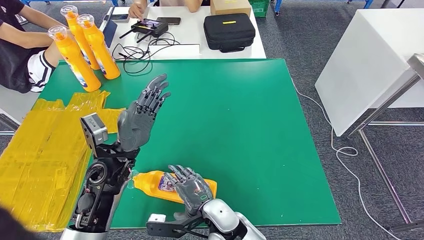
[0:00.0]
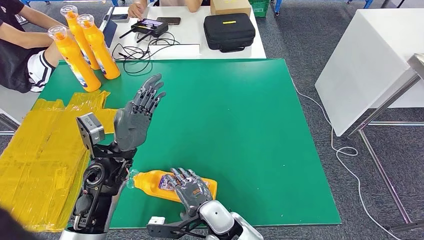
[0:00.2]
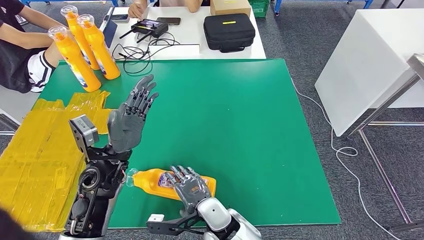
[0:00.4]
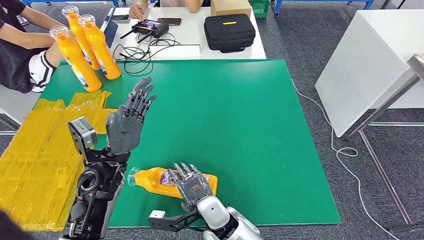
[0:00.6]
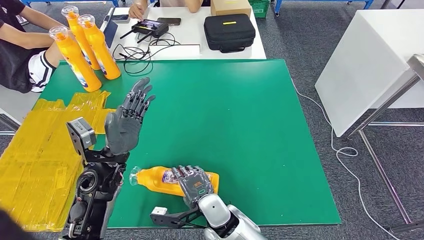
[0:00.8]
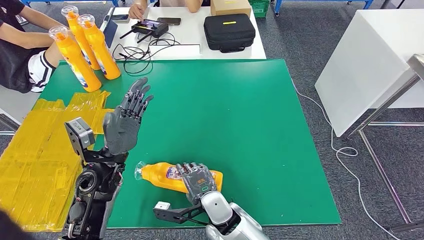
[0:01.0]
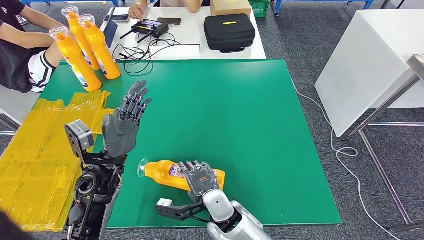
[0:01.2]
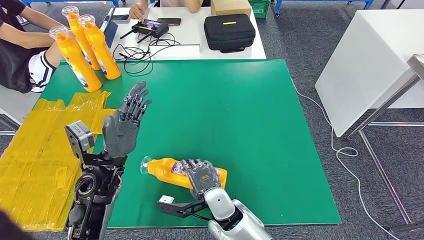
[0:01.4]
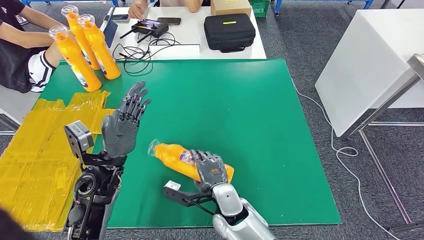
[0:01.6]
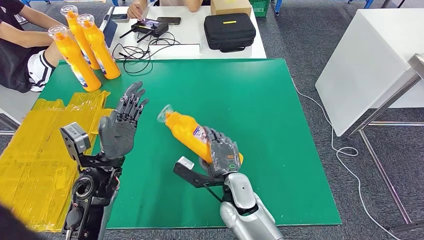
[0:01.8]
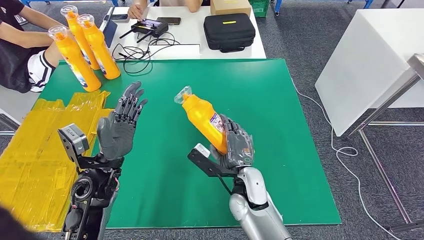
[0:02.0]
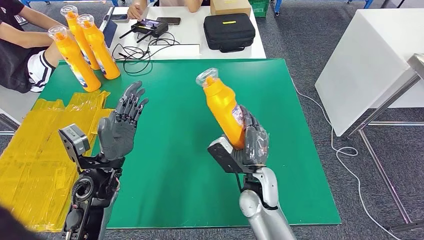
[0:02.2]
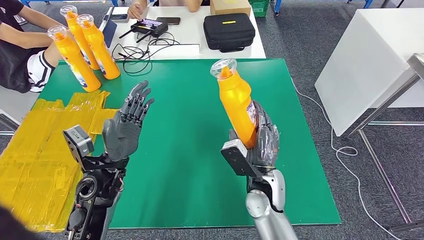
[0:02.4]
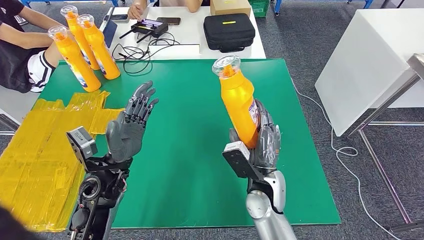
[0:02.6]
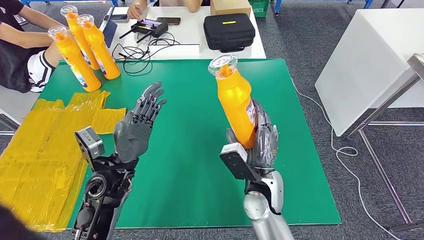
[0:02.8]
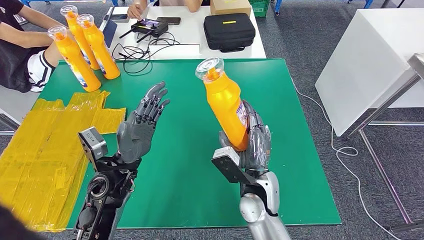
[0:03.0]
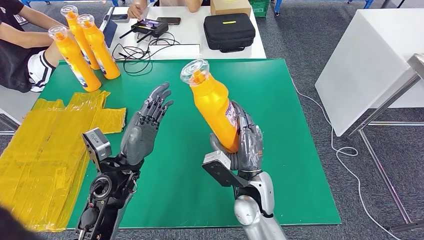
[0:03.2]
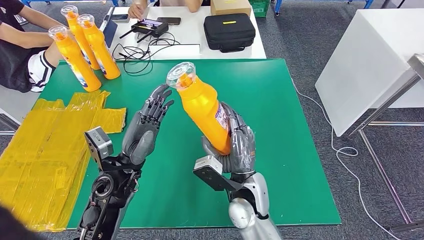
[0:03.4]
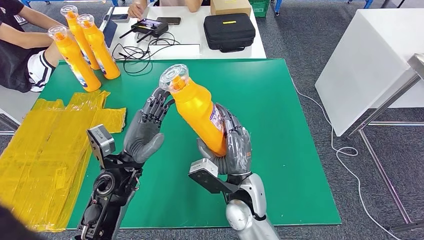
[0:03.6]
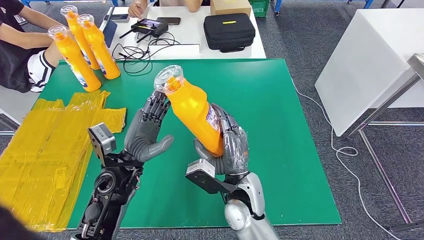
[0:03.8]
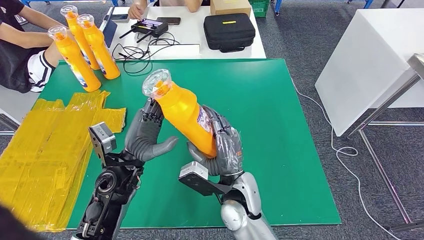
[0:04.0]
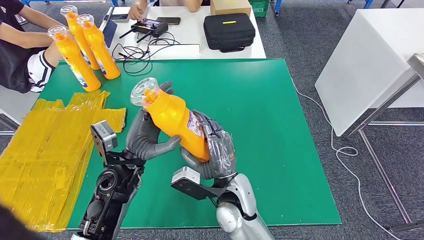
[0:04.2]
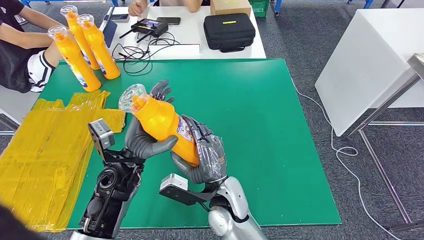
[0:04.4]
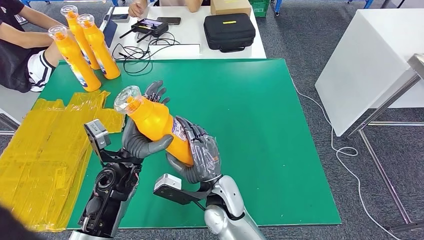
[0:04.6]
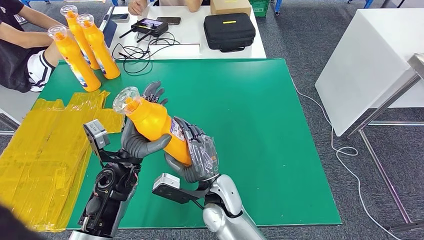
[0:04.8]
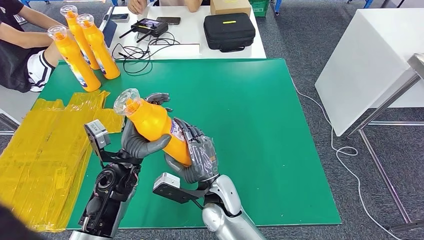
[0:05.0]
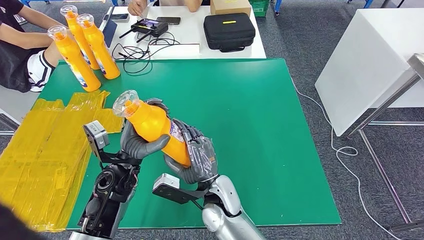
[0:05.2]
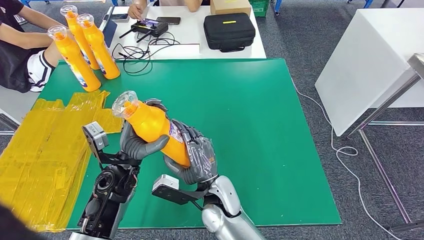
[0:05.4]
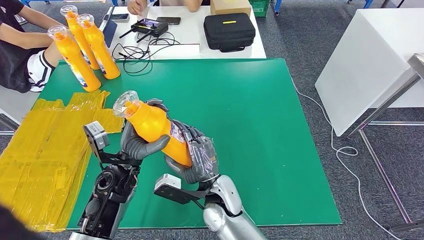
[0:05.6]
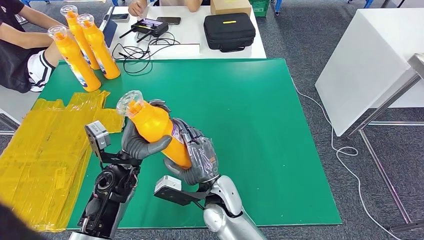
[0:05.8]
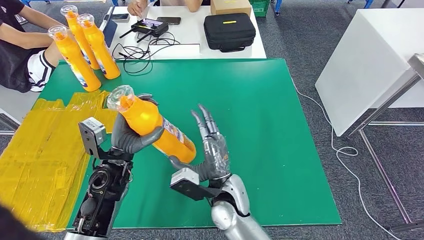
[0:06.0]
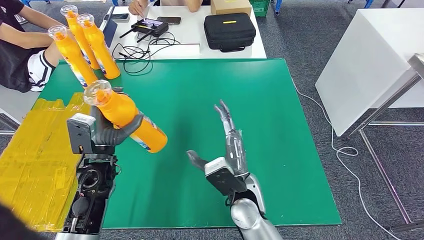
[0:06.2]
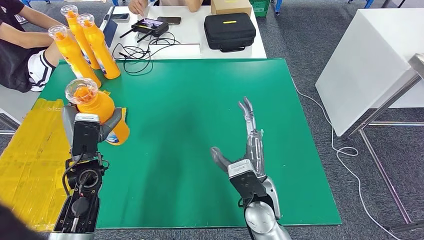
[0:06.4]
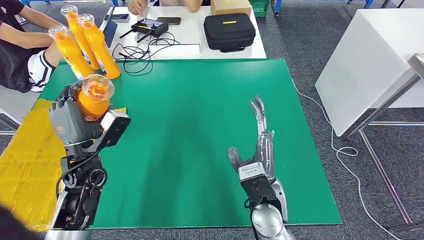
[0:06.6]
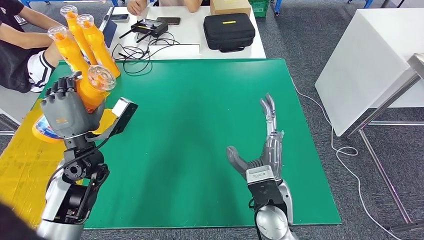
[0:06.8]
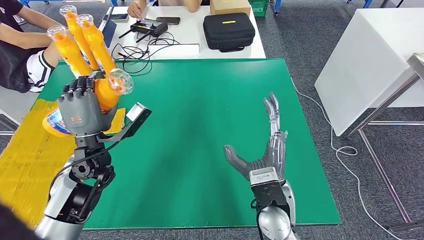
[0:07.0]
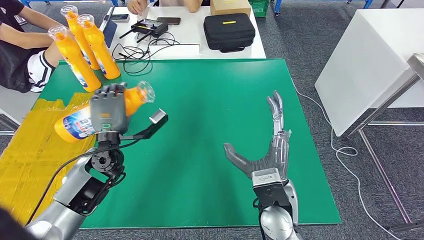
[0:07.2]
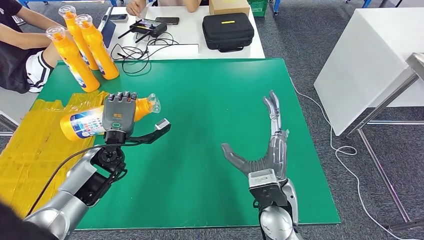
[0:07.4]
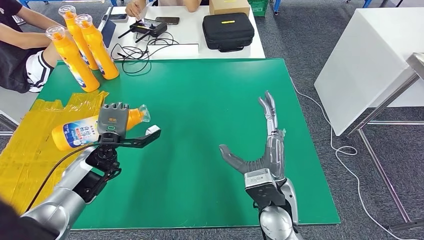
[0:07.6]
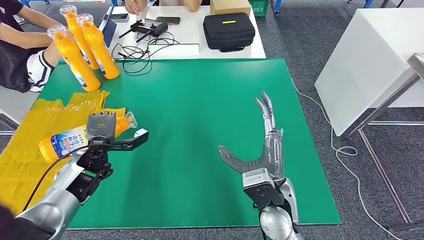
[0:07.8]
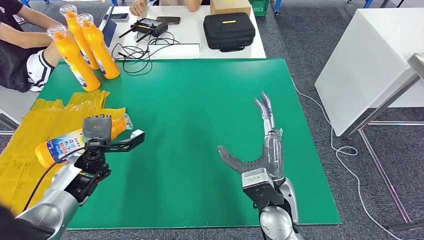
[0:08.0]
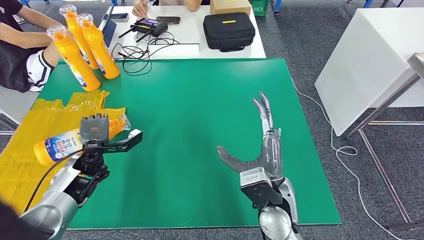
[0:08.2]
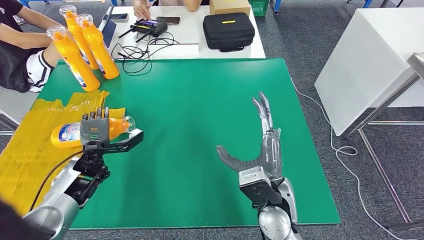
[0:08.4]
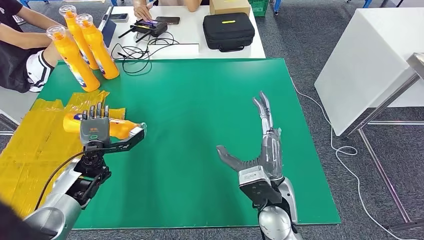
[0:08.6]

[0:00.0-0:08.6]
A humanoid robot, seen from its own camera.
Step, 0:00.0 to 0:04.0: Pick up the fast-moving consumer goods bottle from the table.
Step, 0:04.2 to 0:08.4: Flip the fast-moving consumer goods bottle to the front side.
0:00.0 to 0:01.4: The hands move only a little.
0:01.4 to 0:02.8: The right hand goes approximately 10 cm upward and to the right.
0:02.8 to 0:04.4: The right hand heads to the left, covering approximately 10 cm.
0:04.4 to 0:05.8: The hands make only small movements.
0:05.8 to 0:07.2: The left hand goes approximately 10 cm to the left and forward; the right hand travels to the right and upward by approximately 10 cm.
0:07.2 to 0:08.6: The left hand travels to the left and downward by some 10 cm.

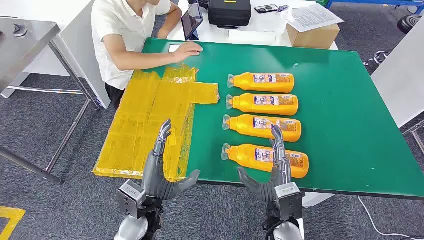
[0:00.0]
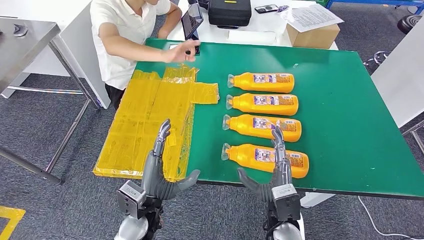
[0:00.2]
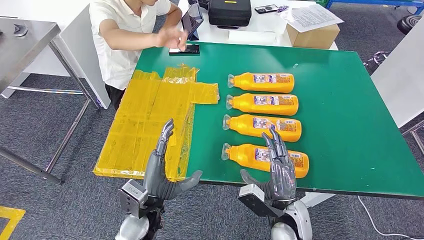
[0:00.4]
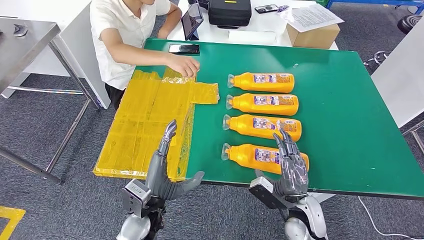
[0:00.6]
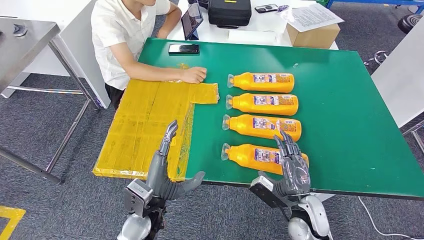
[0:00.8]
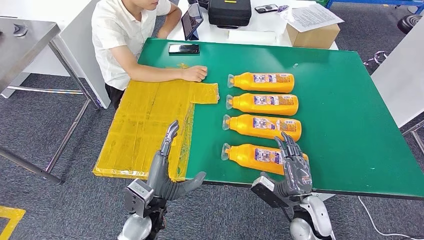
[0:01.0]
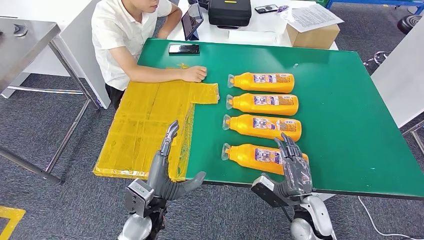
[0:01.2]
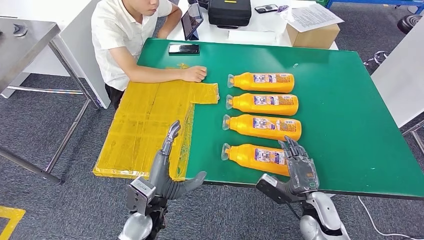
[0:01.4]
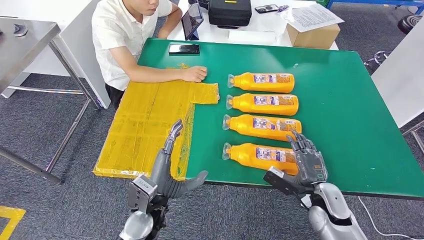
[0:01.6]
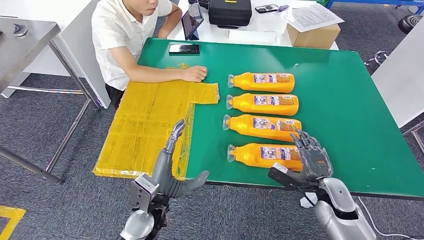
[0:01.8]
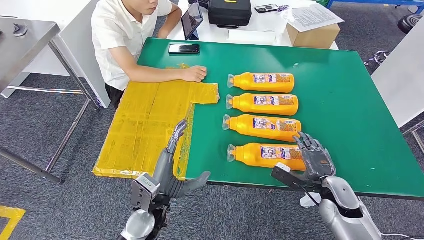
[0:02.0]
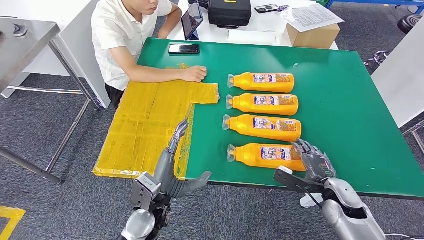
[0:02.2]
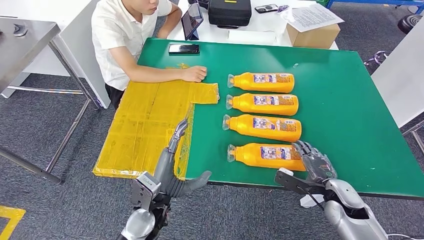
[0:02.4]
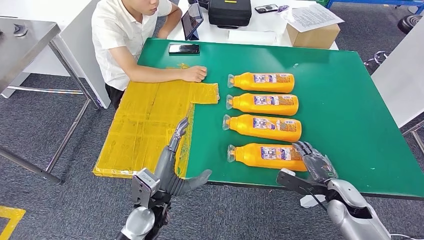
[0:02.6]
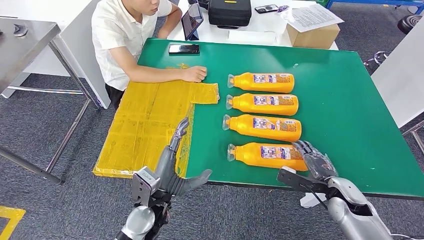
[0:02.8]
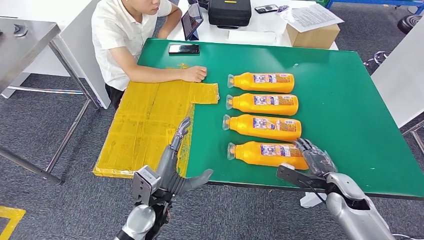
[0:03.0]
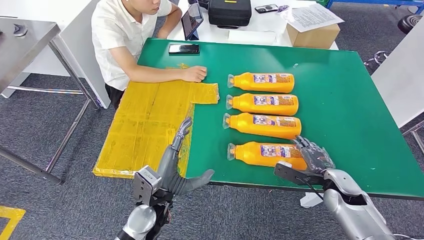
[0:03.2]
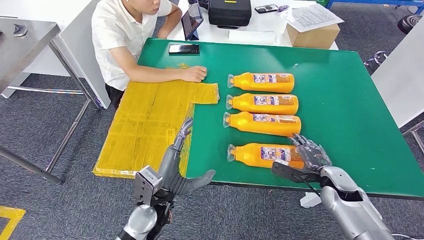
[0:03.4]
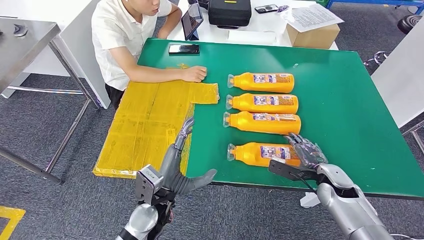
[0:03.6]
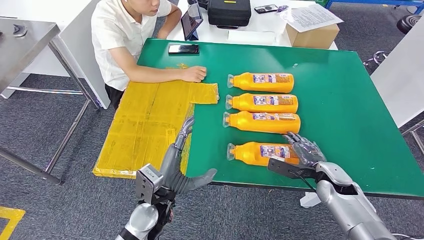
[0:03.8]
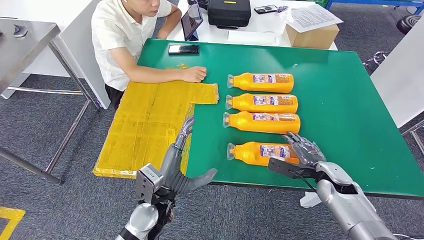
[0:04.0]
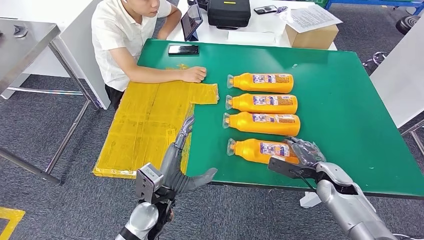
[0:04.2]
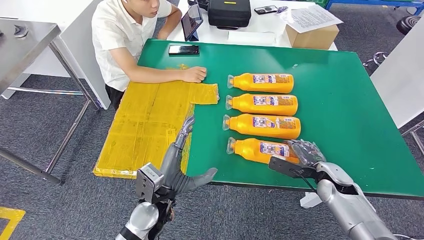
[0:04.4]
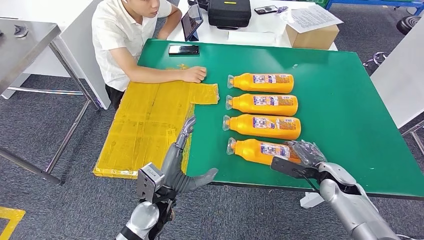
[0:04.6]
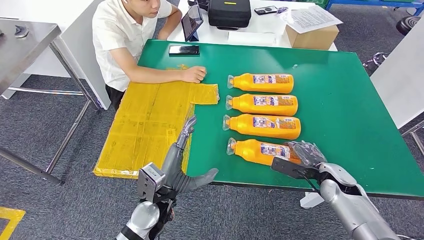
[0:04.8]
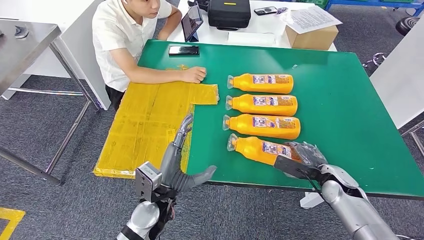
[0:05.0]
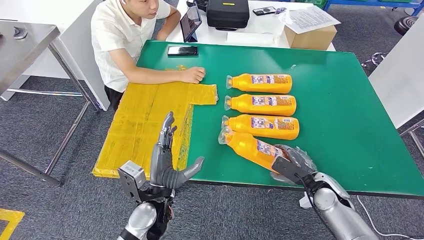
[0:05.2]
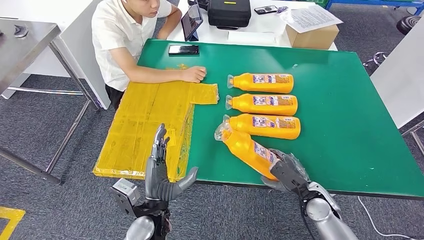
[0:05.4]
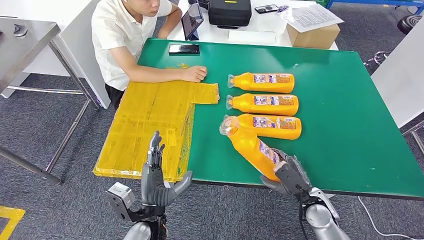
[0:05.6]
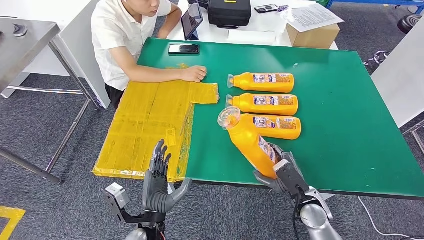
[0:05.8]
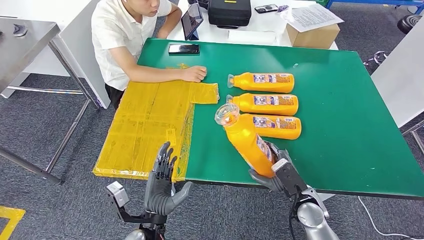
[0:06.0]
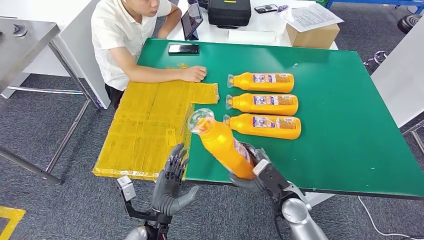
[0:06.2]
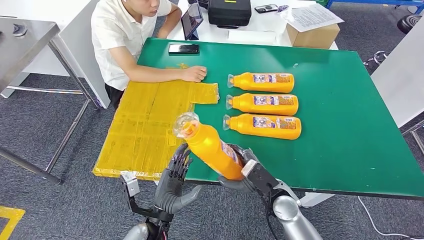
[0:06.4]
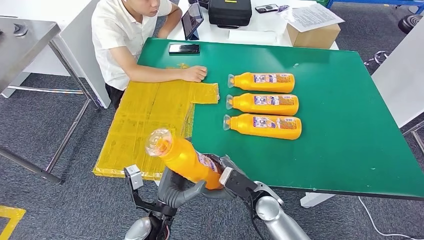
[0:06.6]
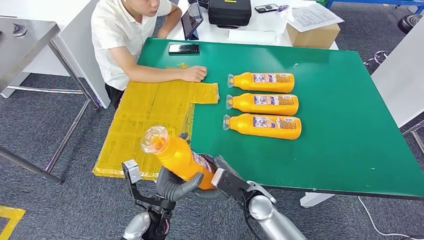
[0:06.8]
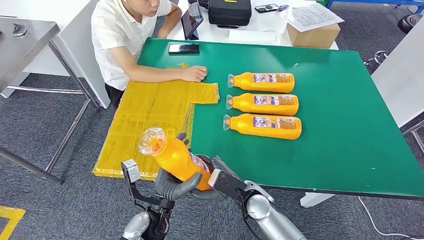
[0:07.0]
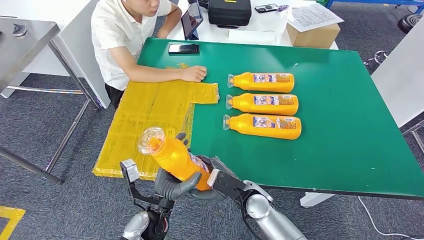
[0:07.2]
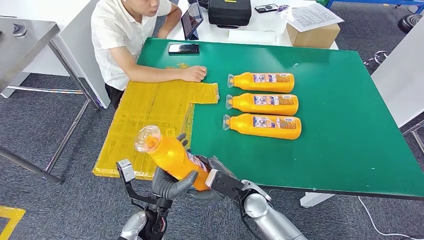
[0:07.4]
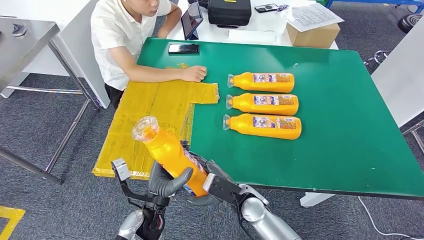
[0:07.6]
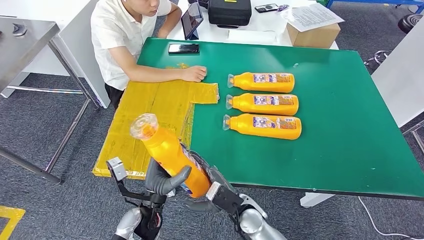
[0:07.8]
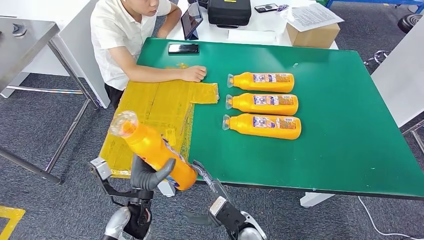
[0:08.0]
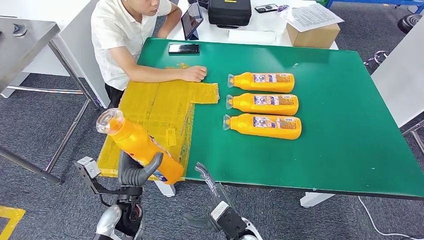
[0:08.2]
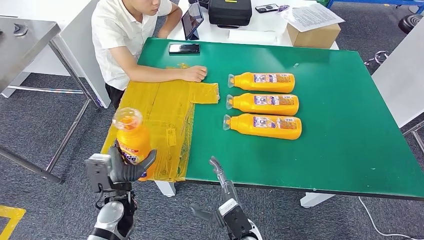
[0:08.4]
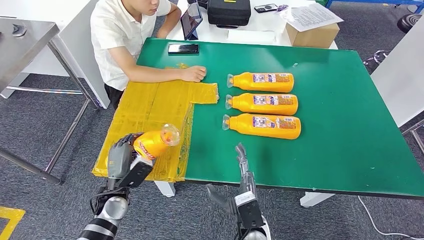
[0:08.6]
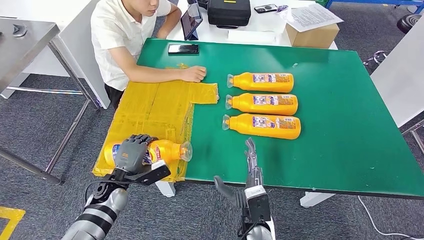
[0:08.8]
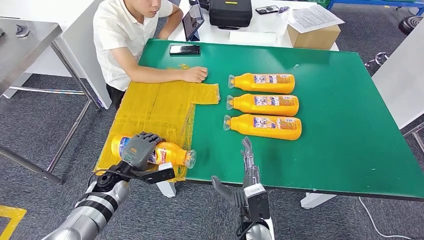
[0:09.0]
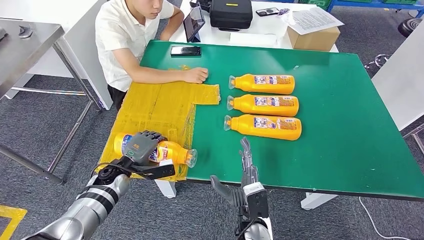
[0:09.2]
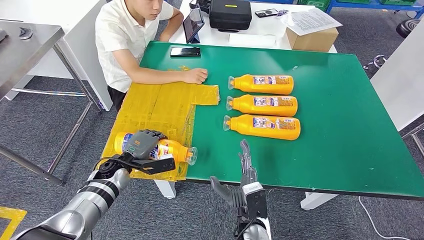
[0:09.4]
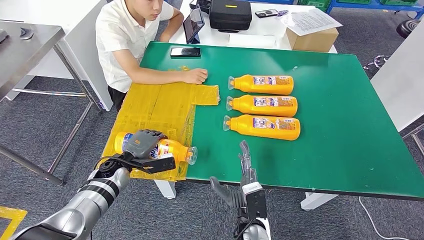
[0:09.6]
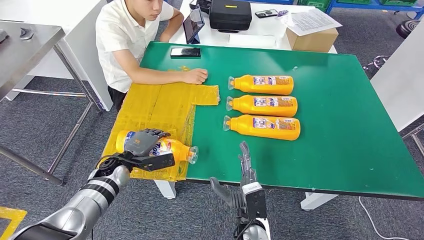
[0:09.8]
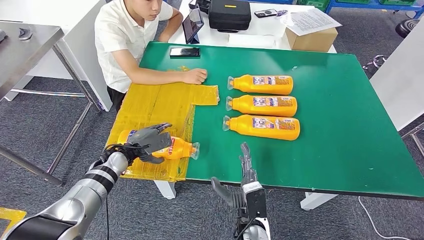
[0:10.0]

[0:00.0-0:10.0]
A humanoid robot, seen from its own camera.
Step, 0:00.0 to 0:05.8: Take the fast-moving consumer goods bottle from the table.
Step, 0:06.0 to 0:09.6: Flip the fast-moving consumer goods bottle to the front side.
0:01.4 to 0:02.8: The right hand goes some 10 cm to the right.
0:02.8 to 0:04.2: The hands move only a little.
0:04.2 to 0:05.8: The left hand shifts some 5 cm backward, while the right hand goes about 10 cm to the left and backward.
0:05.8 to 0:07.2: The right hand is displaced to the left by about 15 cm.
0:07.2 to 0:08.6: The left hand travels to the left and forward by about 15 cm; the right hand moves backward, roughly 10 cm.
